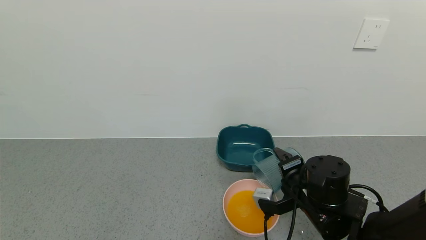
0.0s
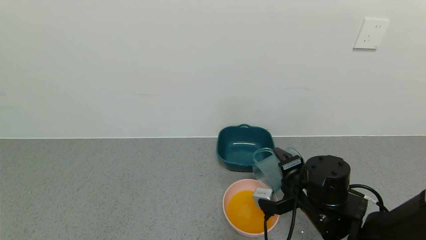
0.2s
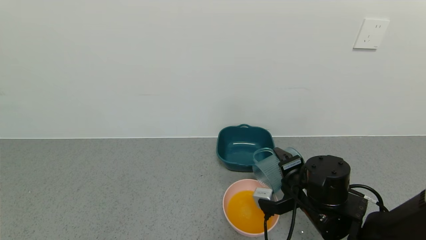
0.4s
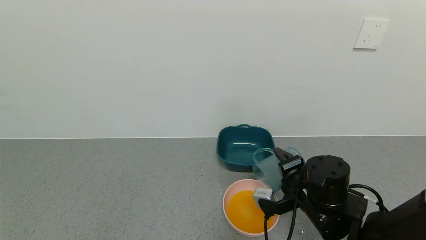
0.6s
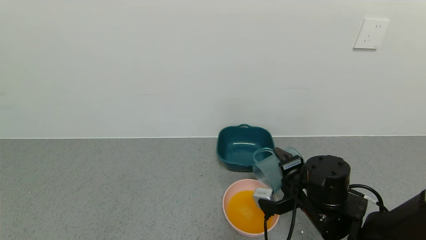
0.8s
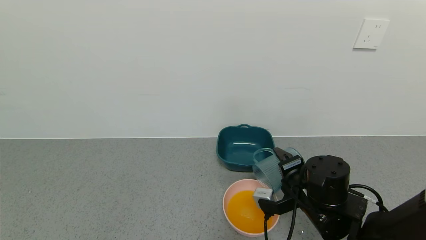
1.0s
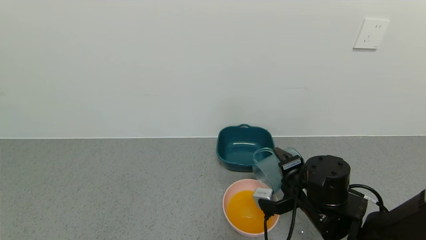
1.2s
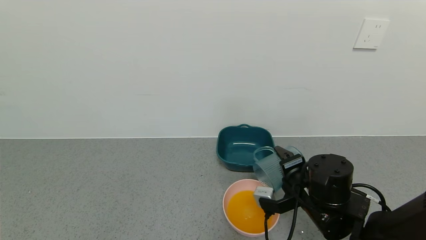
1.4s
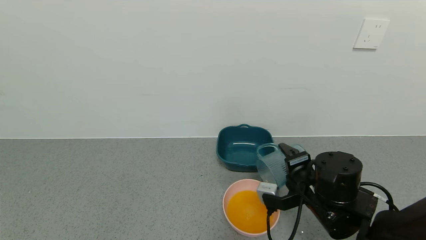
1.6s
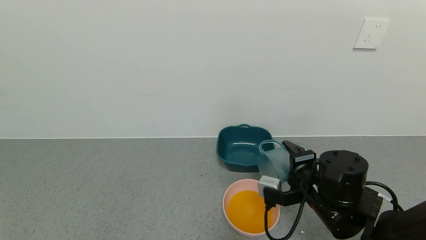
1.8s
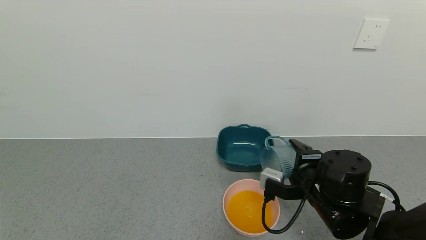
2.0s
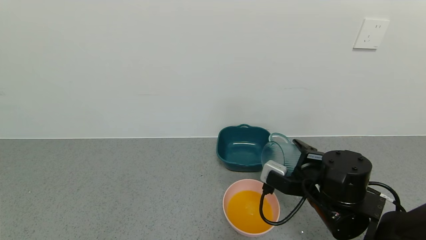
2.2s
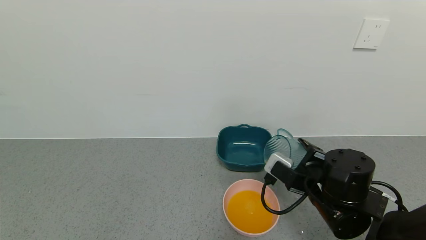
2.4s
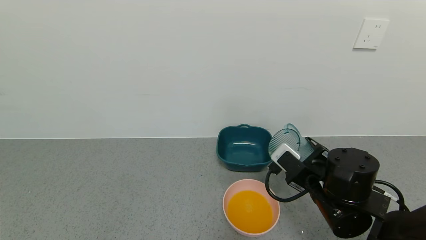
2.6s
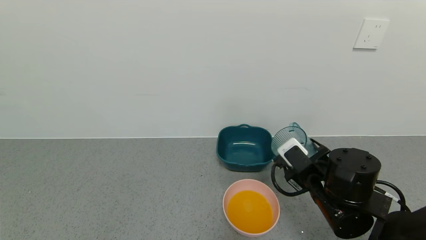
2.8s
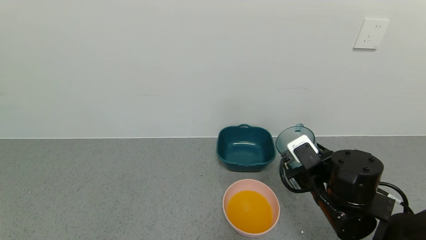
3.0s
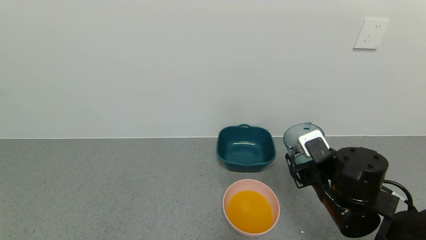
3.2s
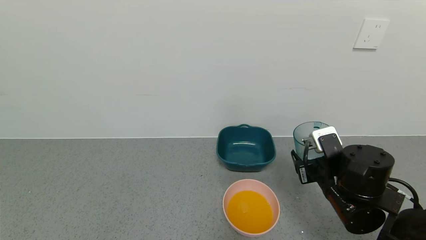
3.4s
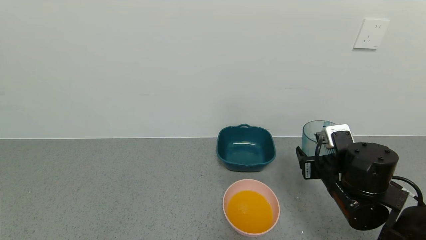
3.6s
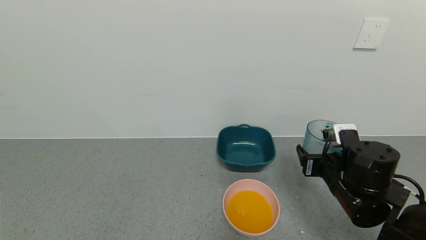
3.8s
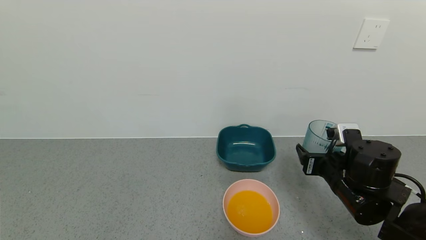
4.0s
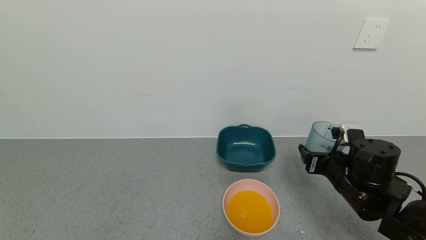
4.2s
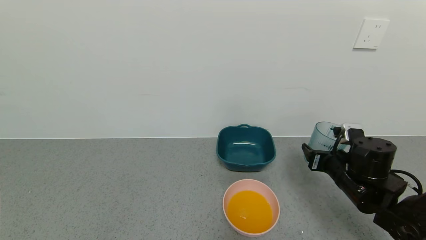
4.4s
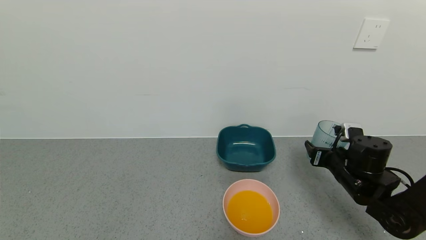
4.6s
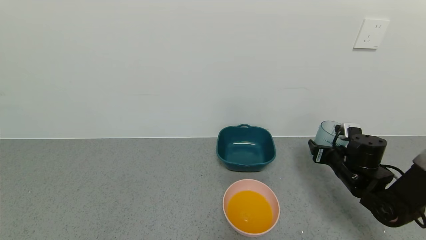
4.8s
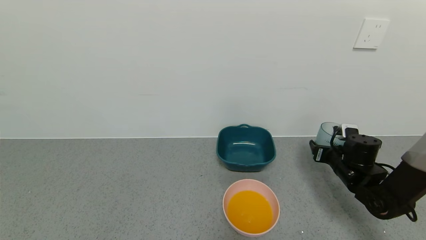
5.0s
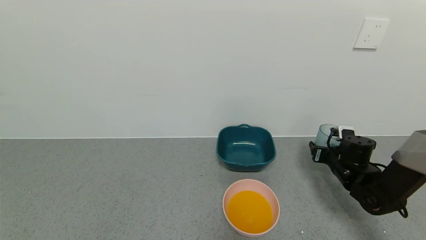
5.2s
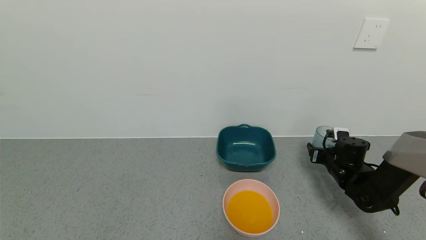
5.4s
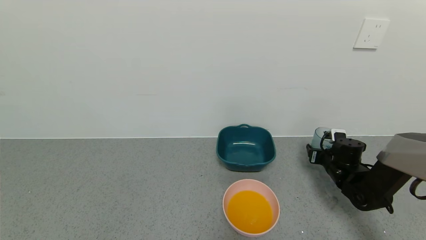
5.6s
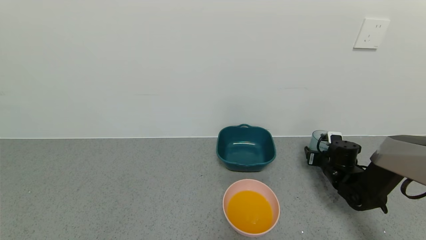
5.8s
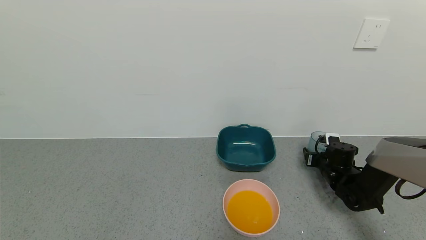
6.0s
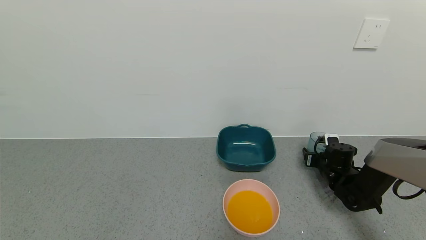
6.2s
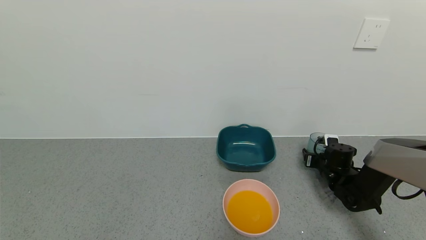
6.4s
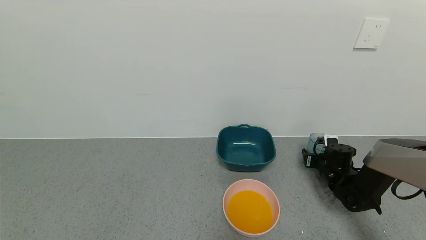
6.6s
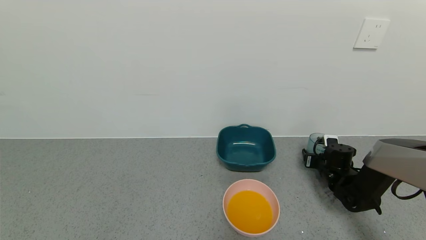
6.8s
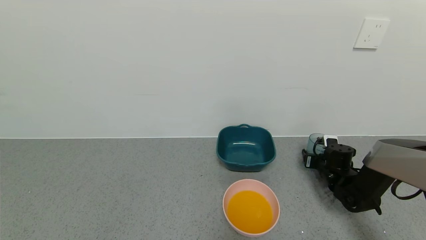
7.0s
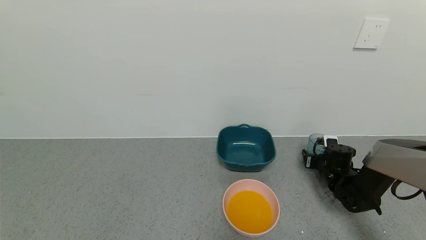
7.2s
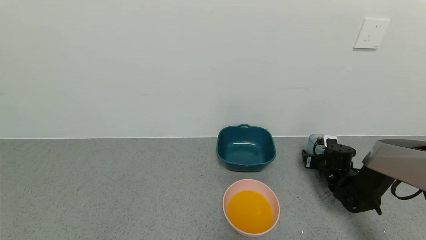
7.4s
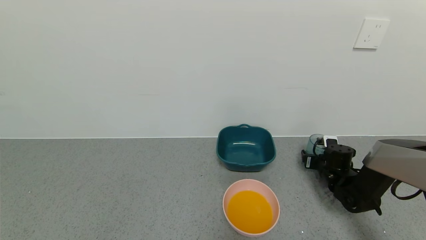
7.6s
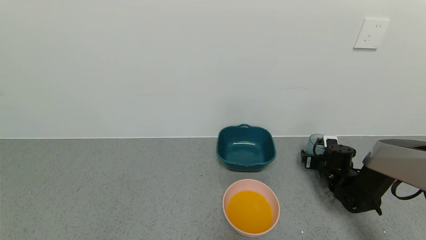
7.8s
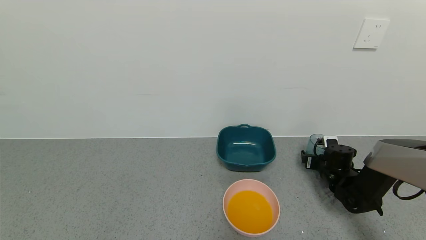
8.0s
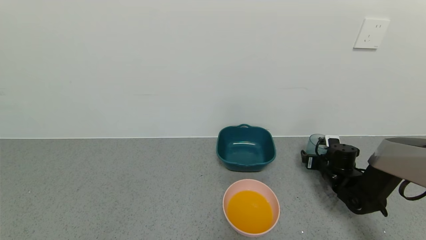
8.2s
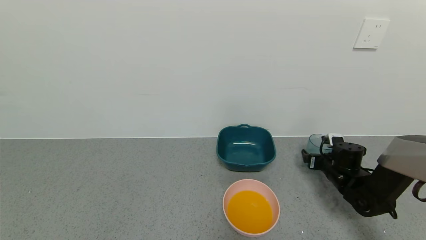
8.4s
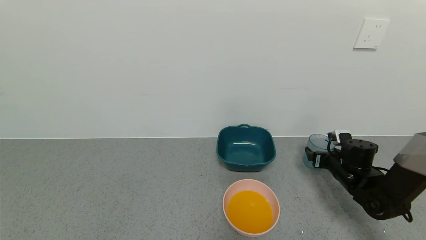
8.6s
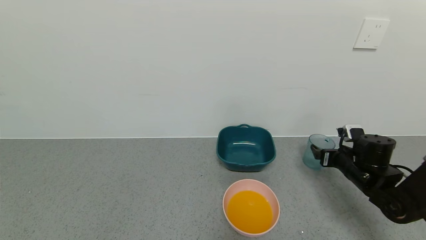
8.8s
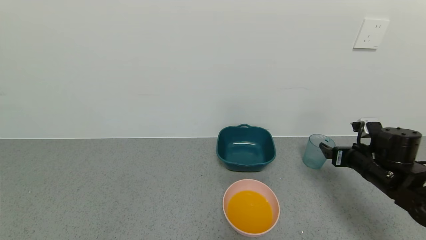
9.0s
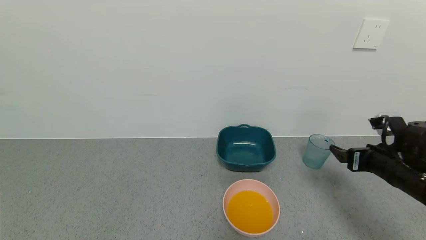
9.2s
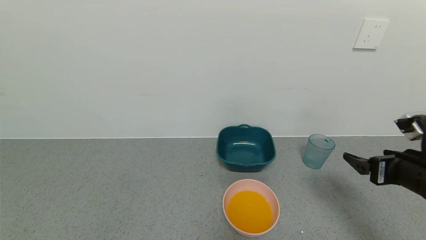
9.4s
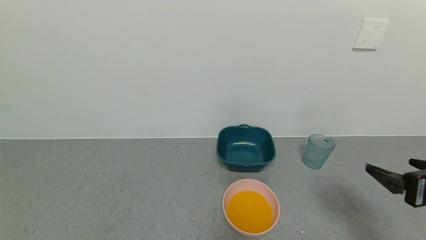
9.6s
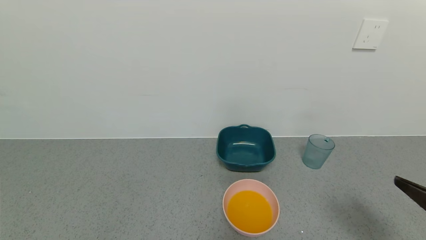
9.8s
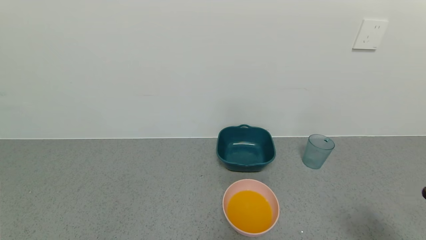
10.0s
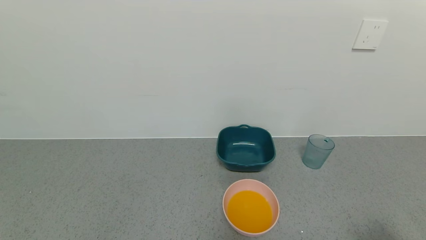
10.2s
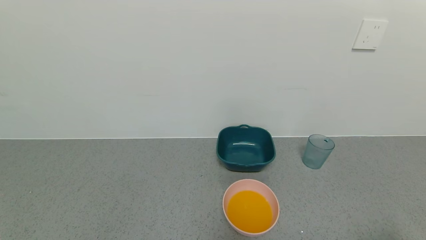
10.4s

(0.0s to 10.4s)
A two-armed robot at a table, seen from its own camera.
Task of the whole recording: use a gripper to pick up the cup and pour the liquid into a bowl or tray.
Step, 0.4s - 8.8s: Place the glass cup with the right gripper.
0.0s - 1.4s: Both grippers stay put.
3.0s - 4.4s: The right gripper is displaced to the right by about 5 cm.
4.4s - 6.0s: The right gripper travels forward, downward and to the right by about 15 cm.
6.0s - 7.4s: The two grippers keep their place.
7.4s - 9.0s: The right gripper moves upward and backward, about 15 cm, and opens up.
9.0s - 10.4s: The right gripper moves backward, some 30 cm.
